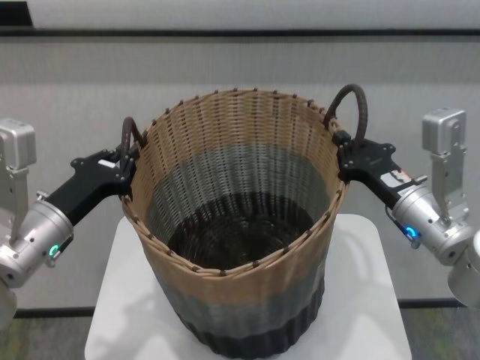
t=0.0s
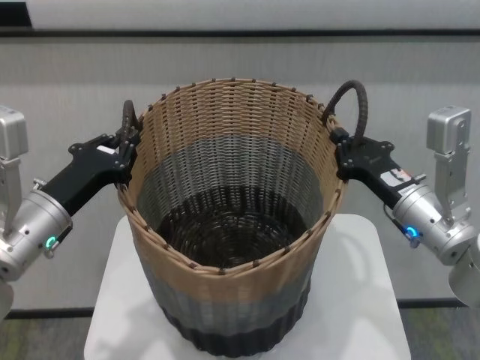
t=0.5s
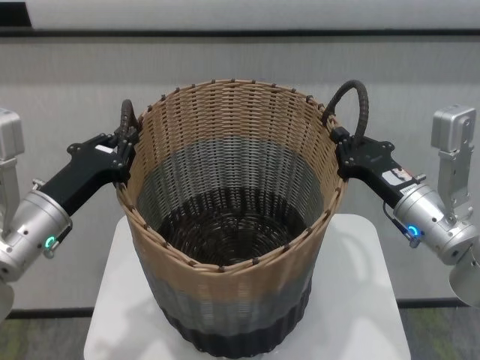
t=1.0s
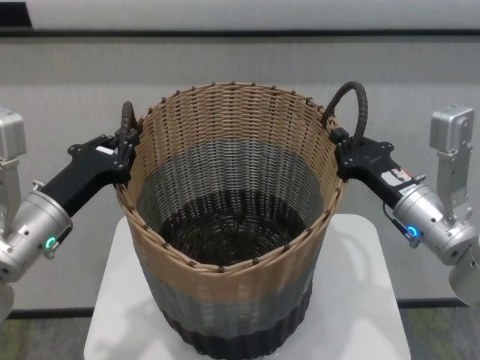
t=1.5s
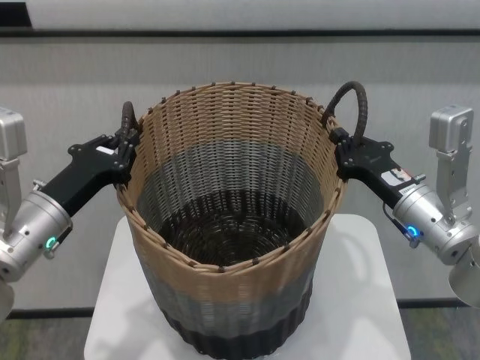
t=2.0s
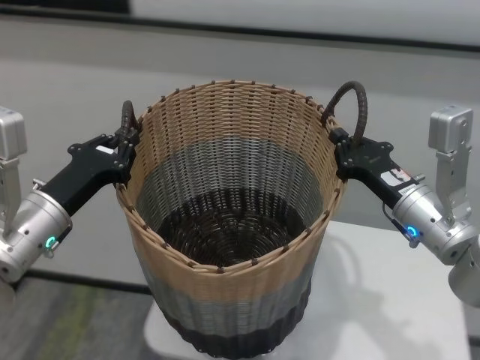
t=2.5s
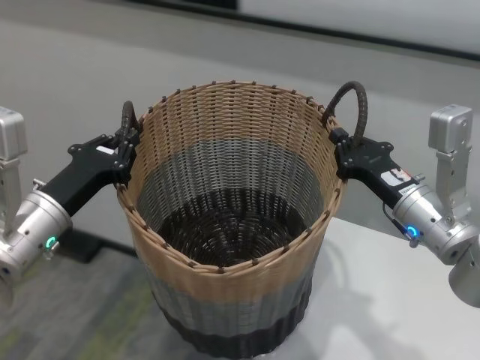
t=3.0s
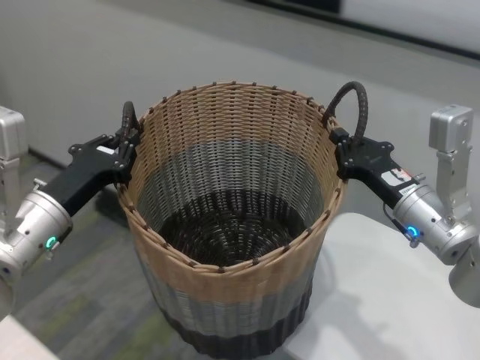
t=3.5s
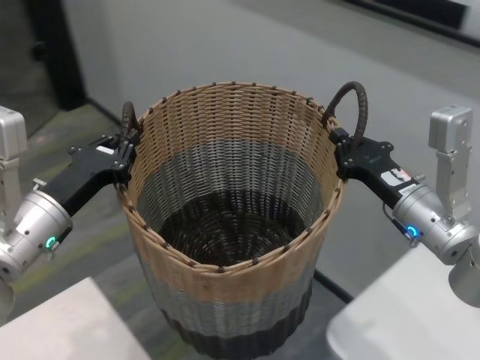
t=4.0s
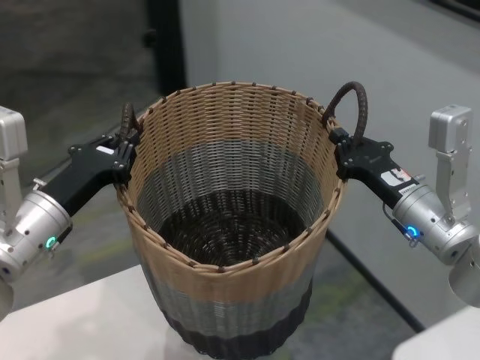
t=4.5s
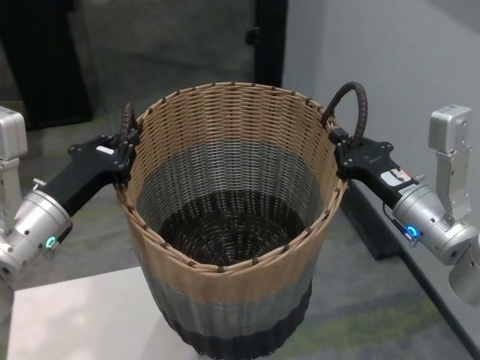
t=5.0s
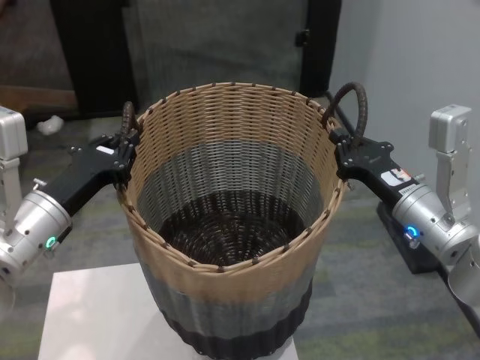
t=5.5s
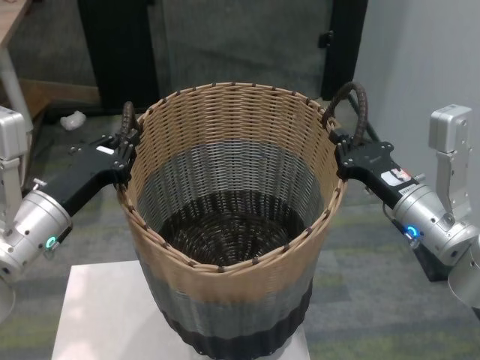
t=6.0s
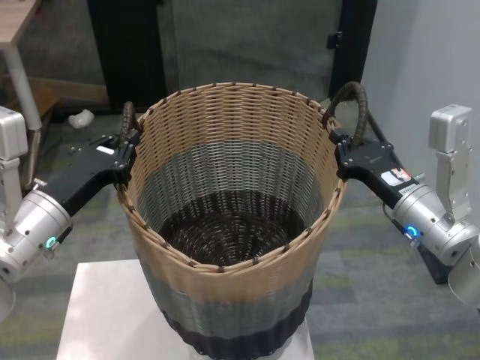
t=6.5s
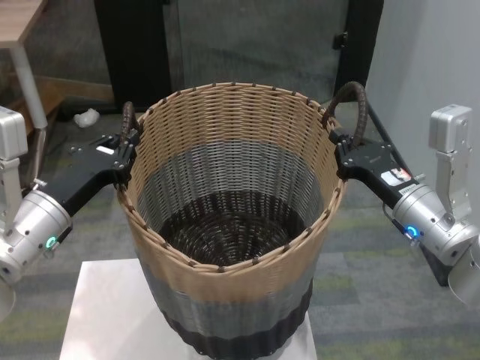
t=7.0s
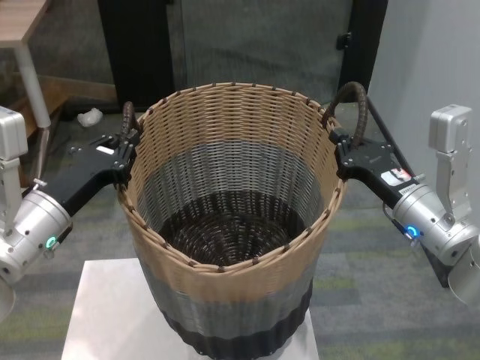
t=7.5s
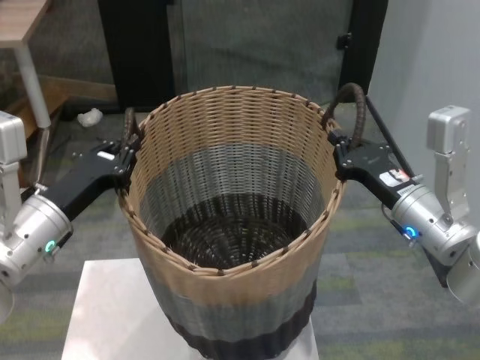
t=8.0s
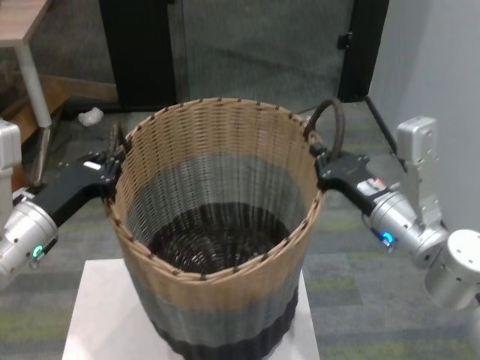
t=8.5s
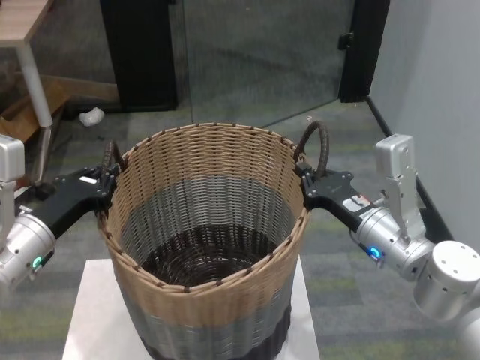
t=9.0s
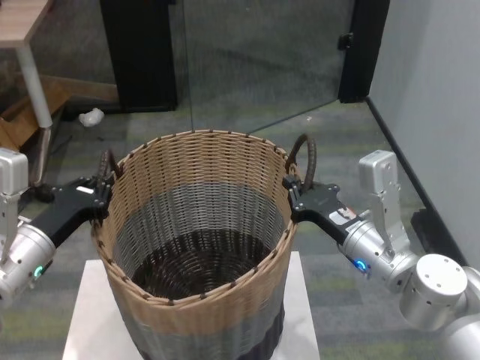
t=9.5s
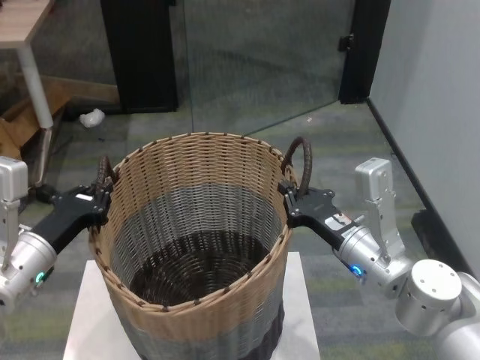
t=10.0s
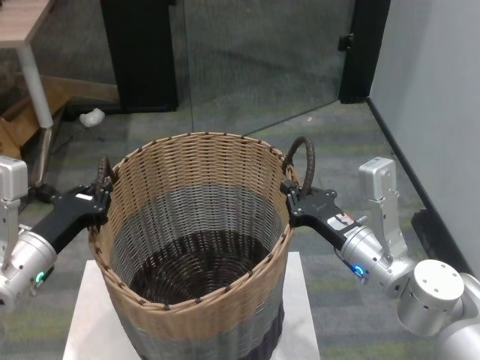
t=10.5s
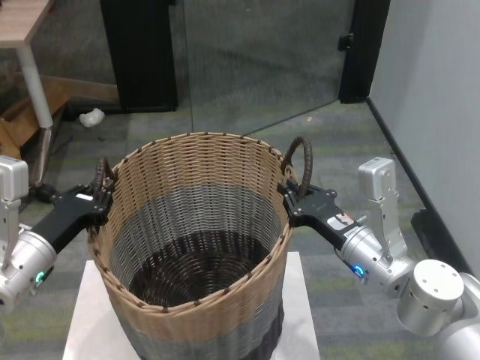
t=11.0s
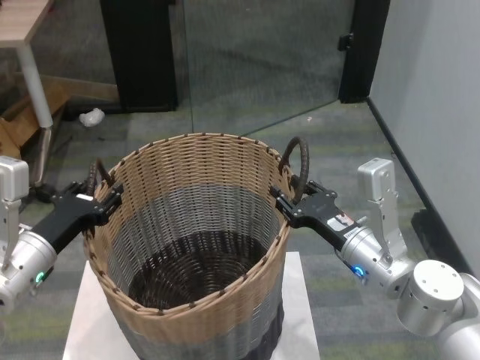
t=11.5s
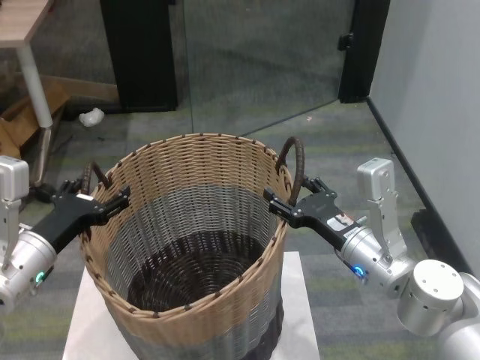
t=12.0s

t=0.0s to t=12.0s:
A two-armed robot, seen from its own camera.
Task of the whole recording: carry the clothes basket in coordination with both hands.
Step, t=0.0s to t=7.5s: Move the basket above the other table.
